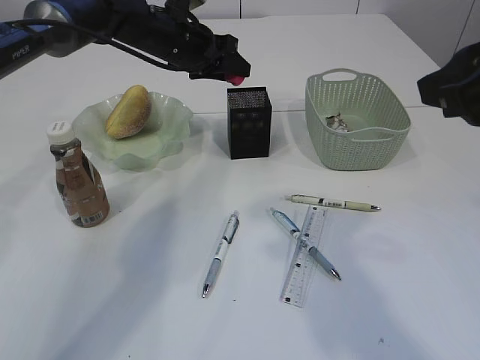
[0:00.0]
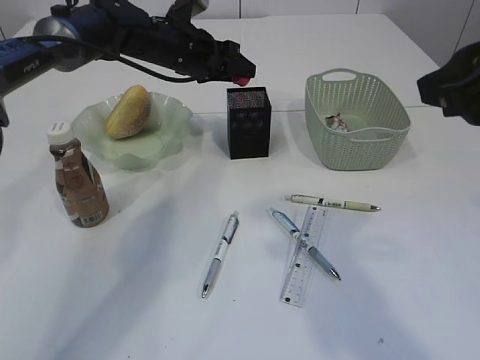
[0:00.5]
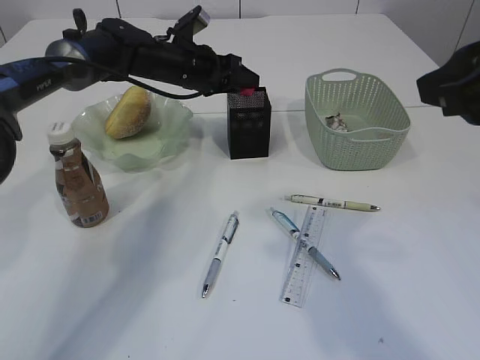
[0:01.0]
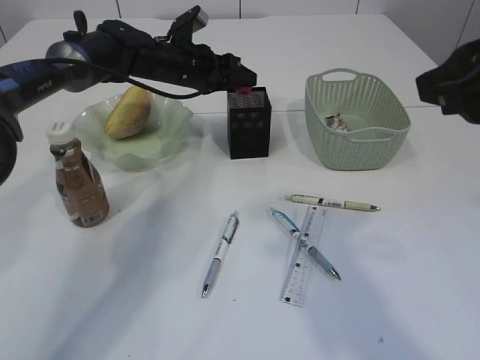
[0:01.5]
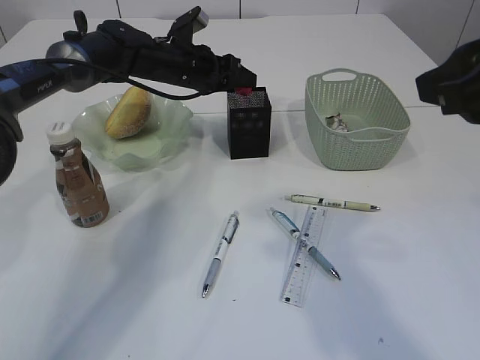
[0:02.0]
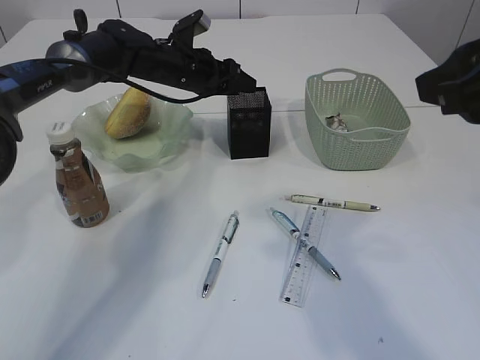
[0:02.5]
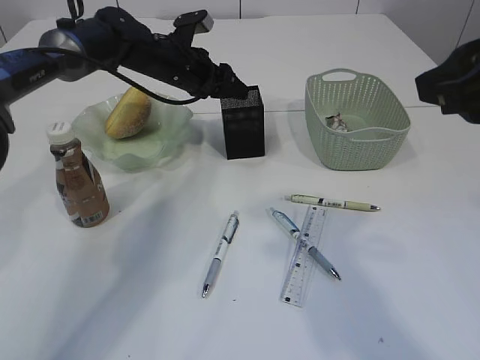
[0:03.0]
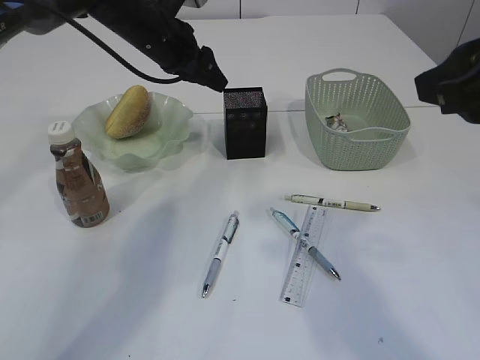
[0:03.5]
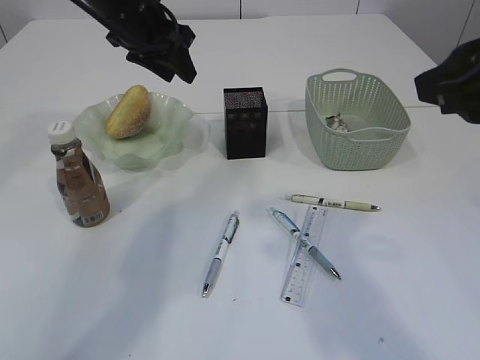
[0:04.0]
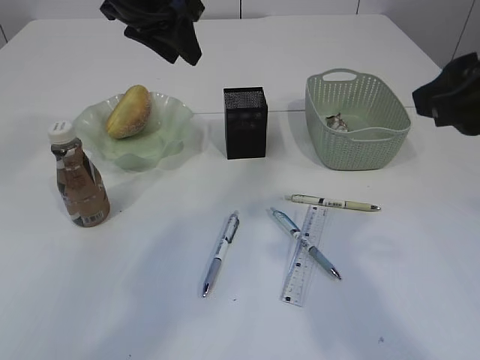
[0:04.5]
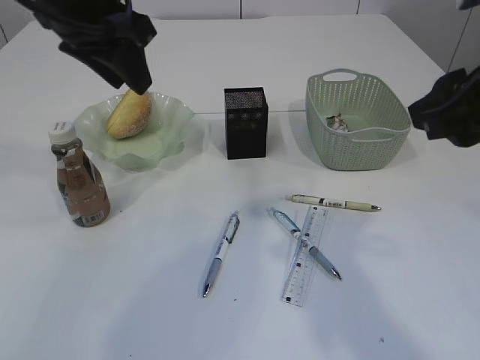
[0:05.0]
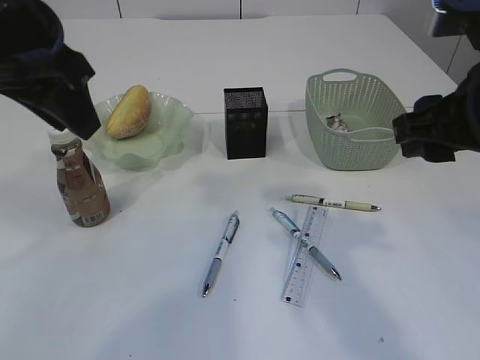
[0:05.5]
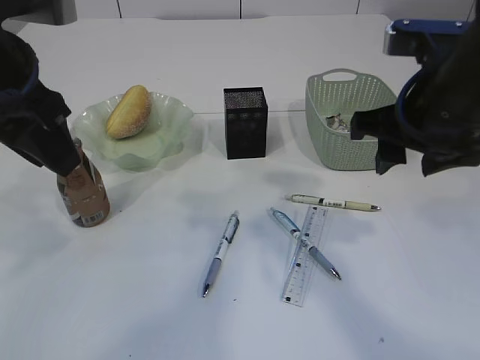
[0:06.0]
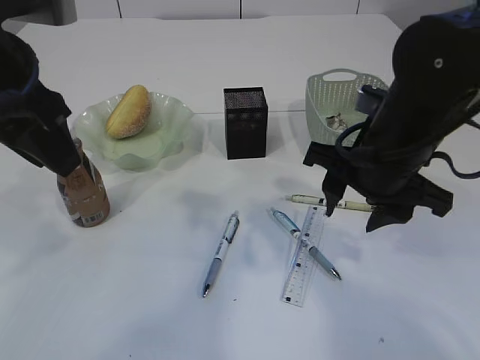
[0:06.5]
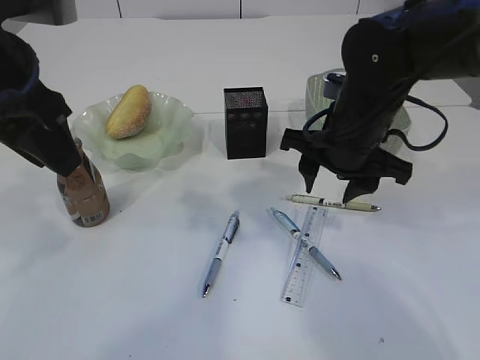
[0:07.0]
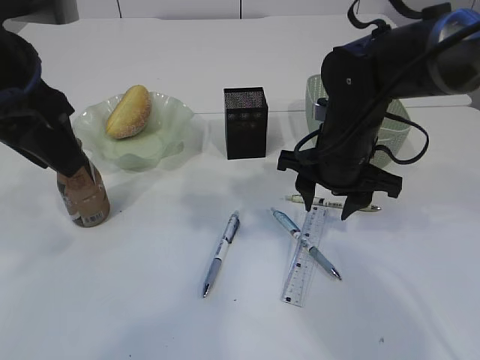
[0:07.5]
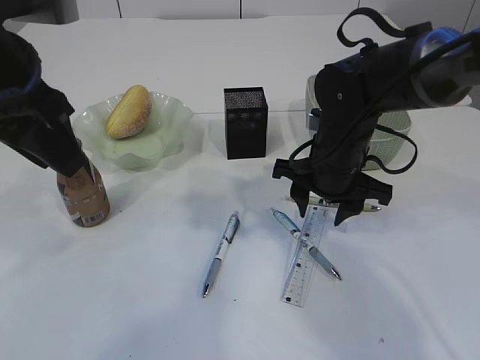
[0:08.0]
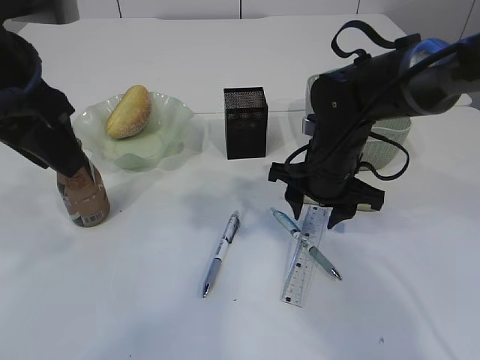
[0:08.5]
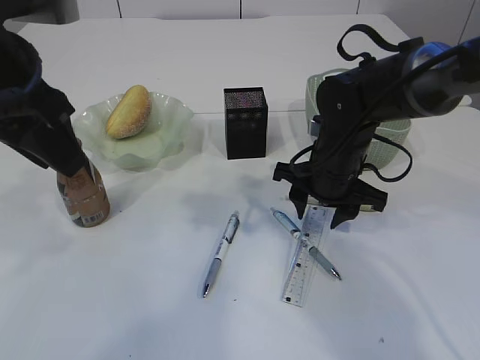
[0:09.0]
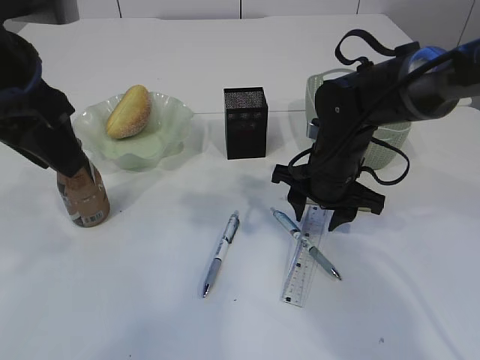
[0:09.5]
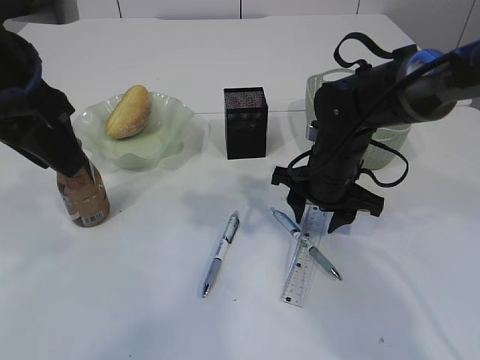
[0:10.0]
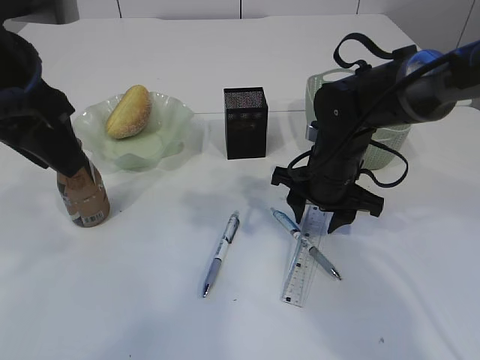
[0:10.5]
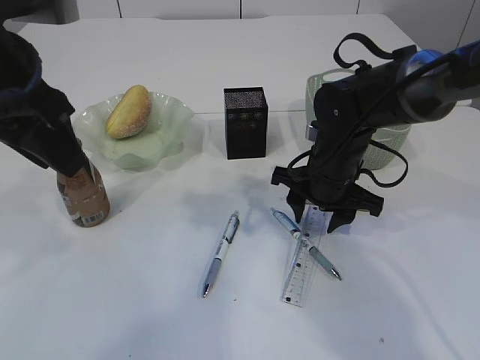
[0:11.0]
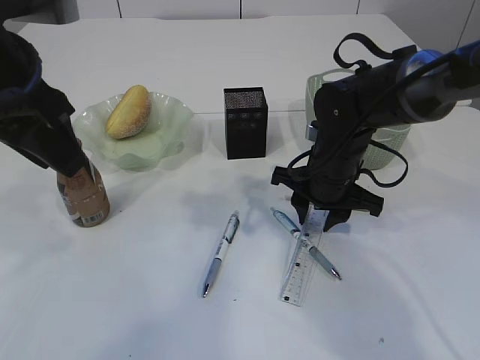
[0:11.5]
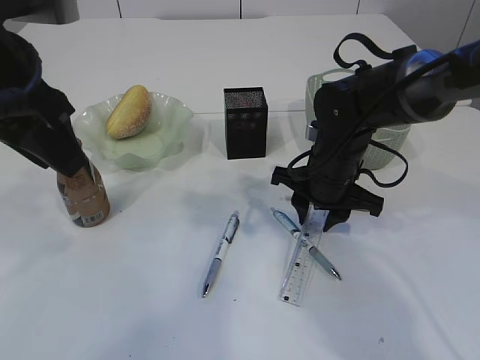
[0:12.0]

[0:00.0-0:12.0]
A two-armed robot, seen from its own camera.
Step, 0.0 to 3.5 s: Place the red pencil sharpener into the pen holder.
0.0 to 2.0 s: The left gripper moves about 5 cm.
2.0 to 4.0 s: The left gripper heads upward and backward, covering approximately 10 cm.
4.0 to 6.0 s: The left gripper moves backward, about 20 cm. Meanwhile the right gripper shifts roughly 10 cm forward and downward.
6.0 to 8.0 s: The right gripper travels downward, forward and to the left by approximately 15 cm.
8.0 to 10.0 s: The grippers move only a little.
10.0 to 12.0 s: Both grippers stay about where they are.

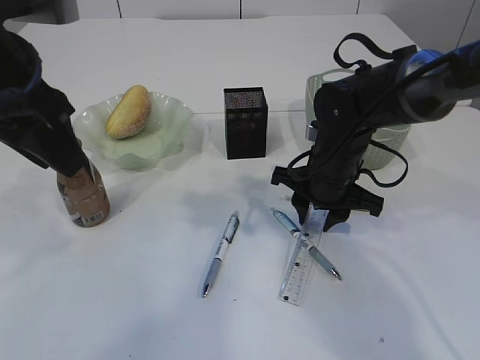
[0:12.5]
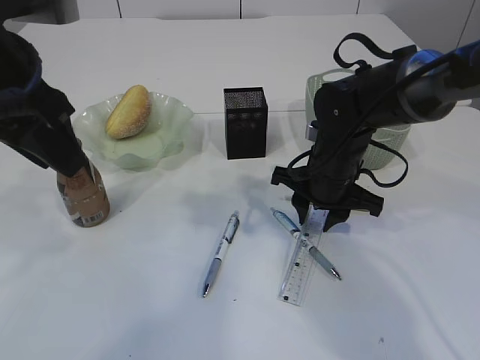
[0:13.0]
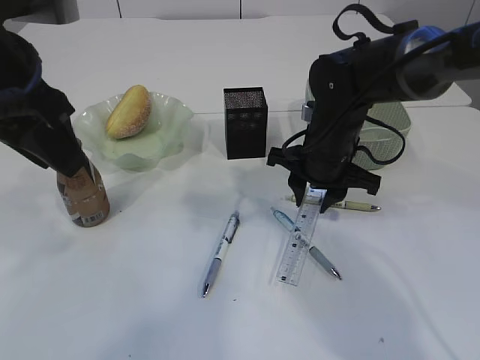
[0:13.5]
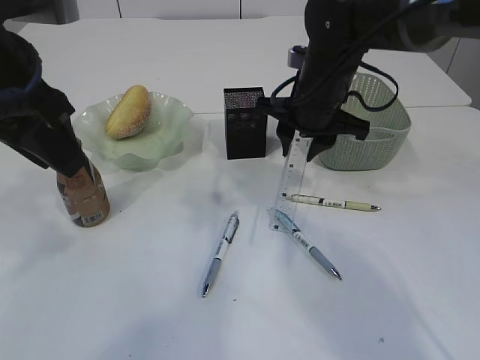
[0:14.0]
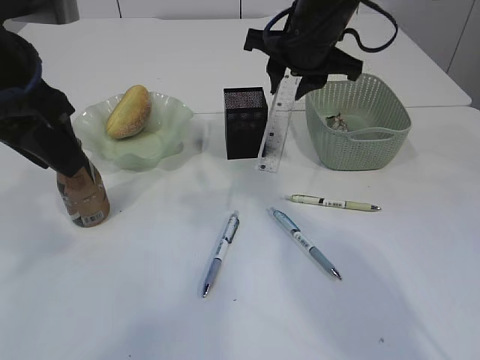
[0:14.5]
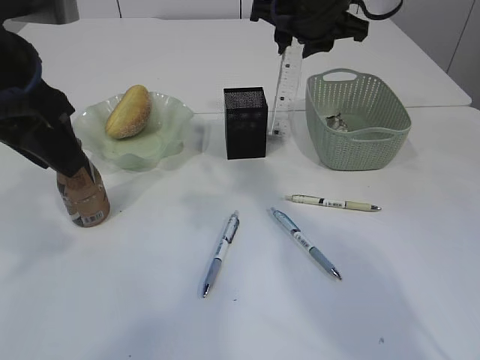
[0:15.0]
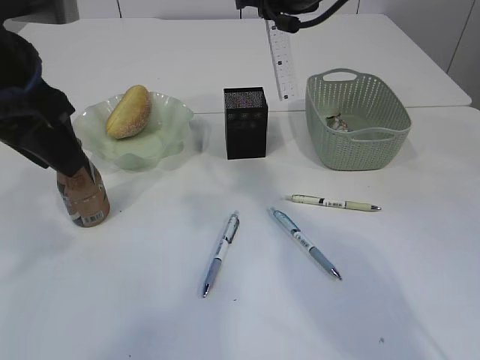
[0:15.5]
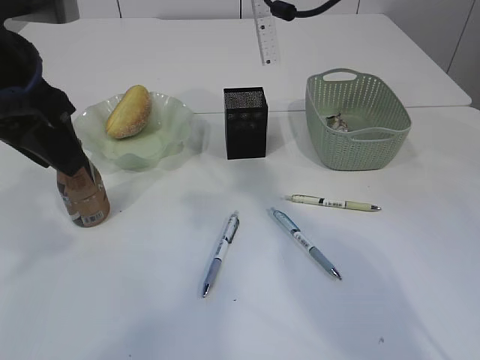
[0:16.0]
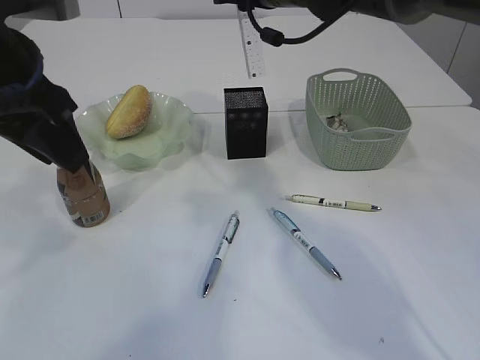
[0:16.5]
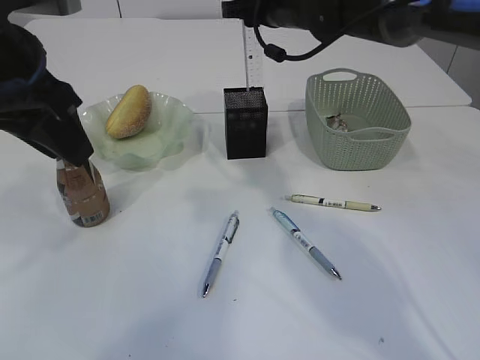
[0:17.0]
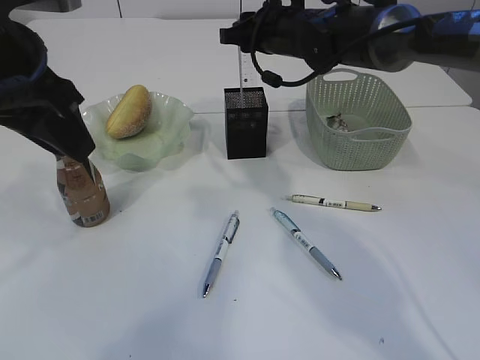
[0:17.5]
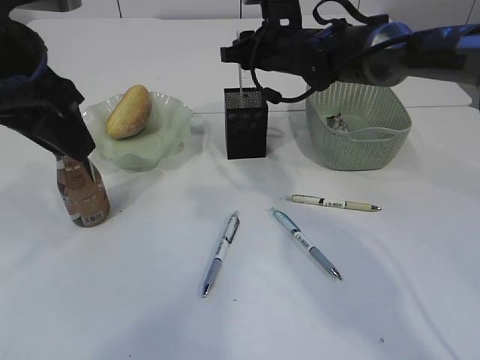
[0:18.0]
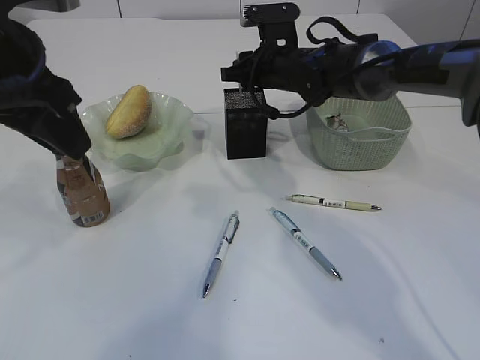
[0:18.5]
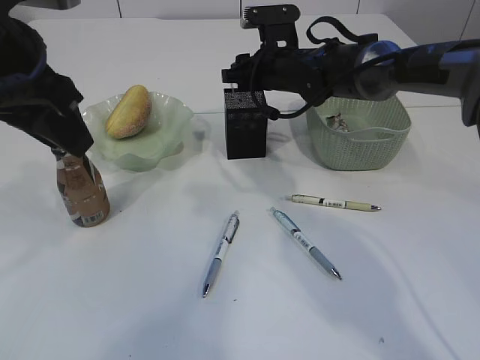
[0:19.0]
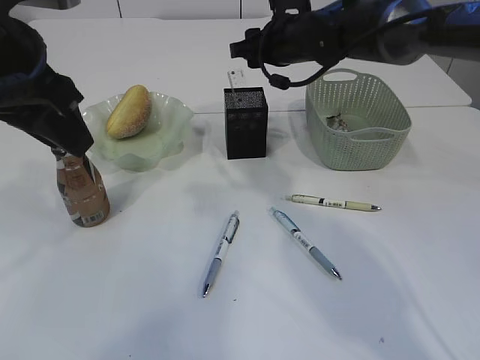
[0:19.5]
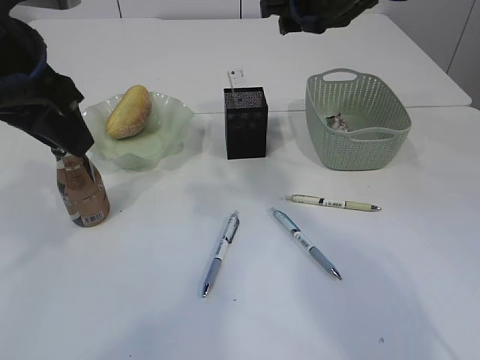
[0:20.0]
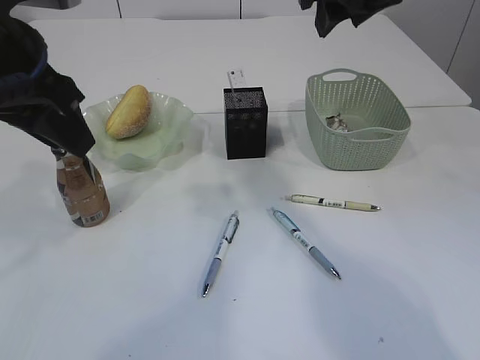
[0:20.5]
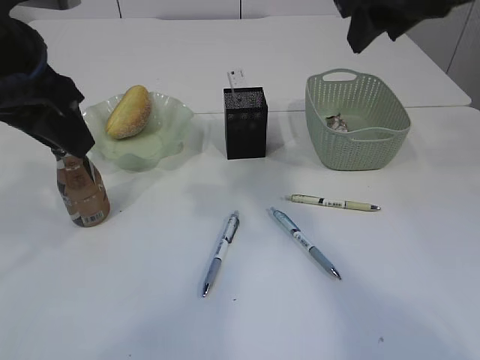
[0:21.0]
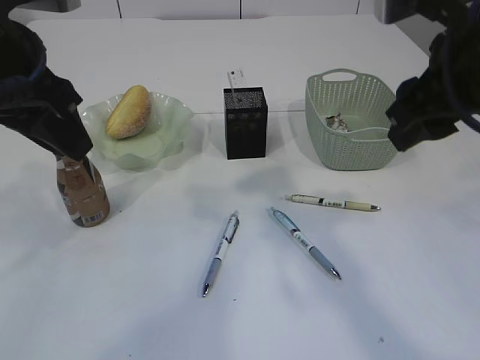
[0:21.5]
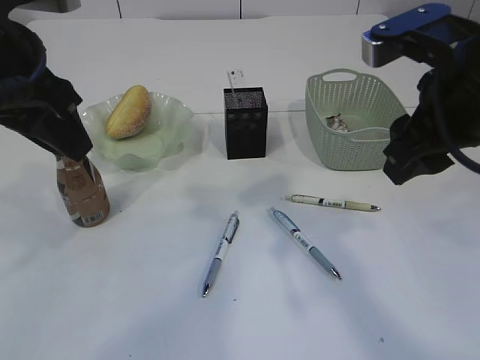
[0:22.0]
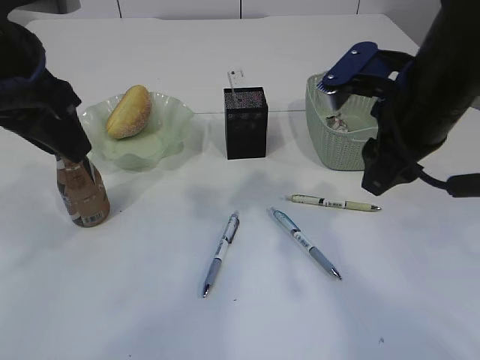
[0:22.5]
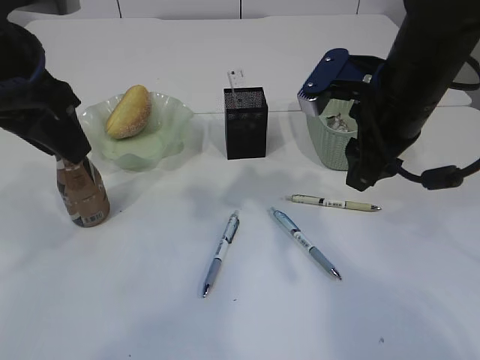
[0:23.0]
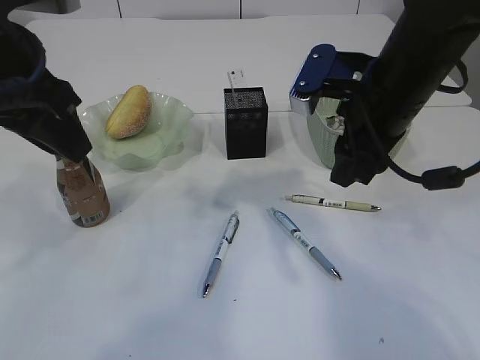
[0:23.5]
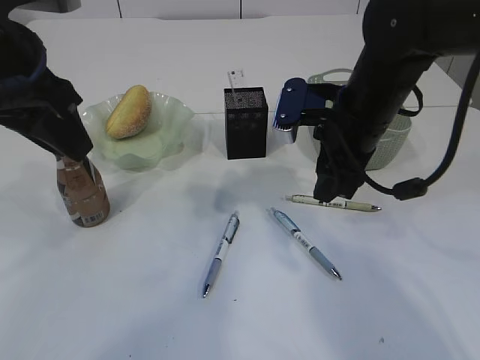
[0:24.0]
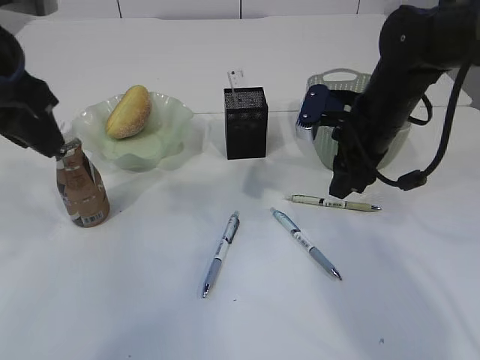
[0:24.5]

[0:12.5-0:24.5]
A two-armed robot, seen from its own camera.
Step, 14.0 to 19.5 s: Place the ruler into the pen holder.
12.5 to 14.5 s: The right gripper travels upward by approximately 15 cm.
14.5 to 16.5 s: The right gripper moves forward, approximately 5 cm.
16.5 to 18.5 s: The right gripper travels downward by roughly 10 cm.
18.5 to 20.5 s: The right gripper moves upward and backward, some 20 cm.
20.5 to 22.5 s: The right gripper travels downward and backward by roughly 15 cm.
22.5 to 24.5 s: The right gripper travels forward and downward by approximately 10 cm.

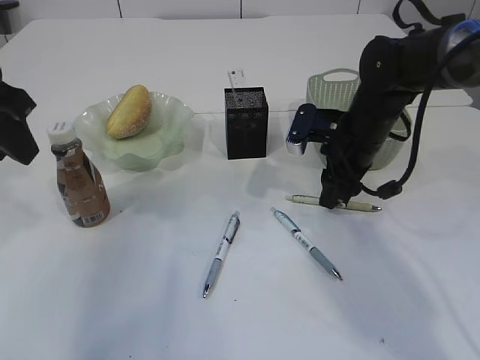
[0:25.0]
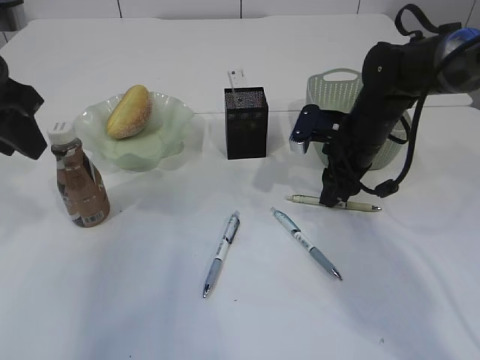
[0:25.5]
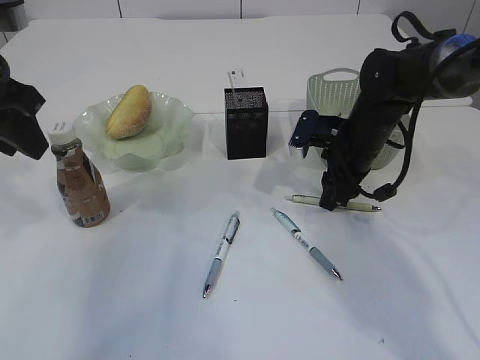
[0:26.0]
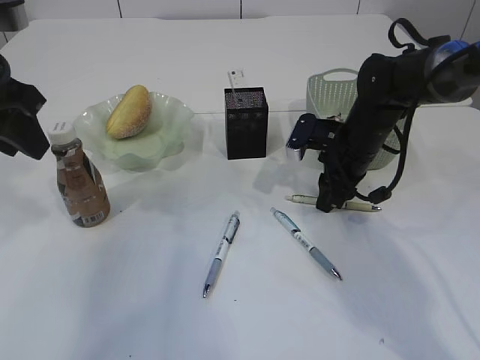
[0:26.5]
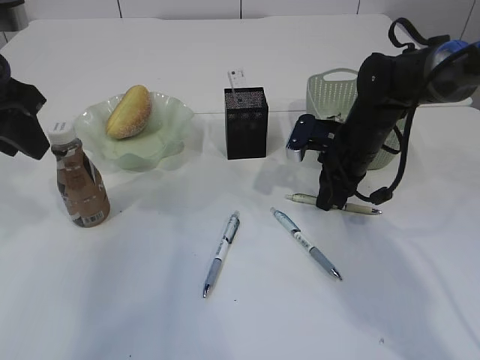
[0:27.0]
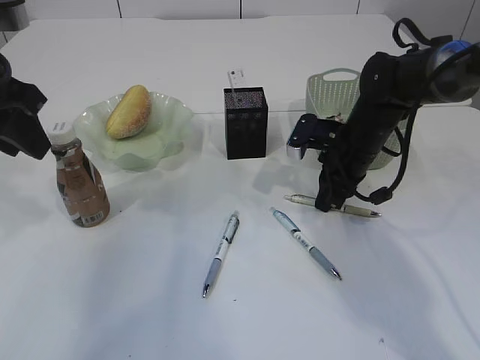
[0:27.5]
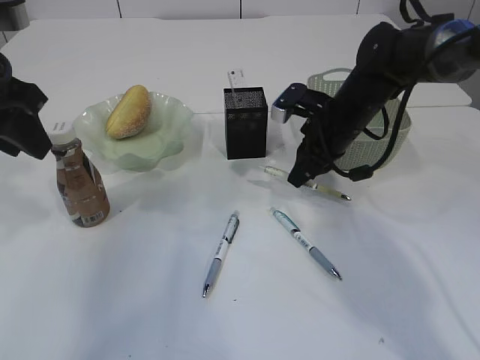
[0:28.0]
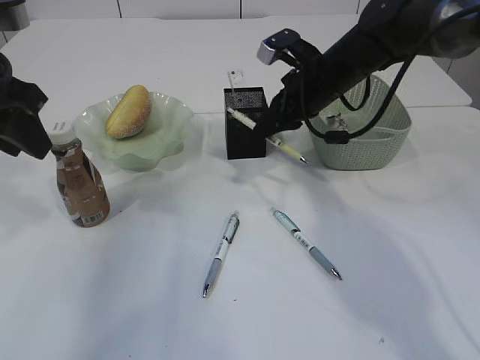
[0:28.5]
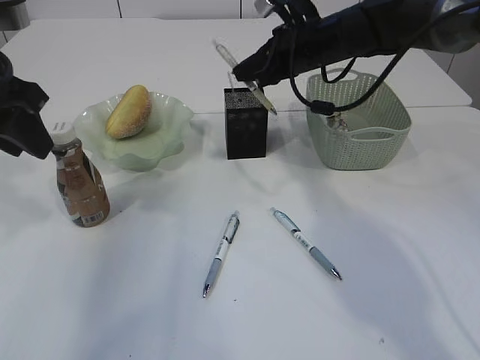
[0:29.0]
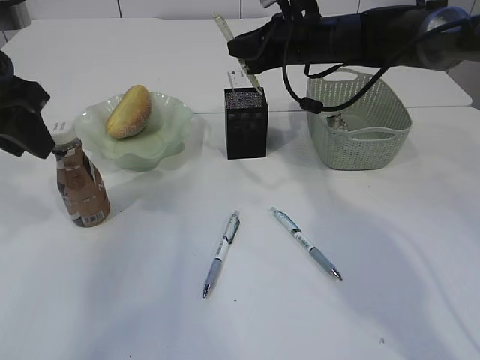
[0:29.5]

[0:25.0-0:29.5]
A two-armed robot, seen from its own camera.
Step, 25.0 to 28.5 s: Pick up the pen with right arm.
25.0 to 27.0 s: The right gripper closes up.
27.0 to 29.5 s: The right gripper travels upward, forward and to the left by roughly 15 cm.
